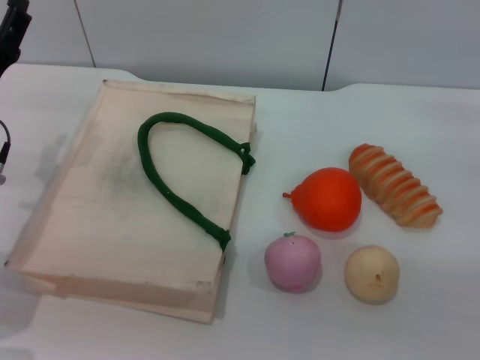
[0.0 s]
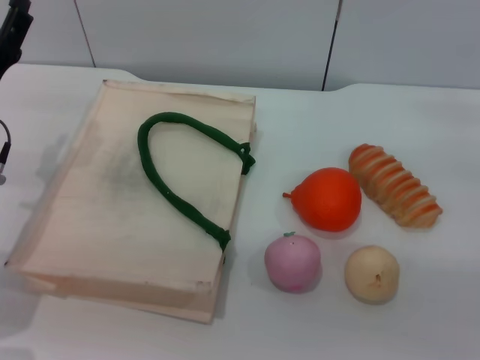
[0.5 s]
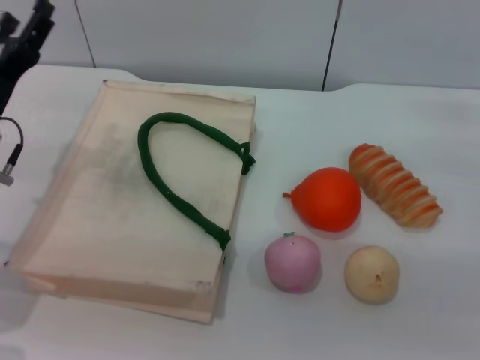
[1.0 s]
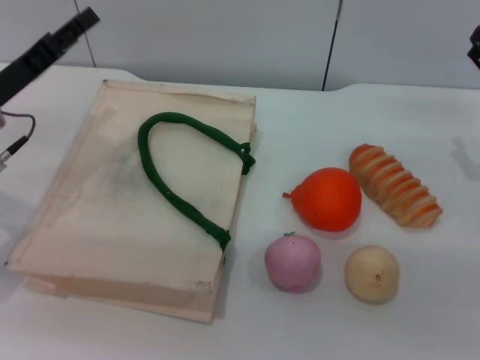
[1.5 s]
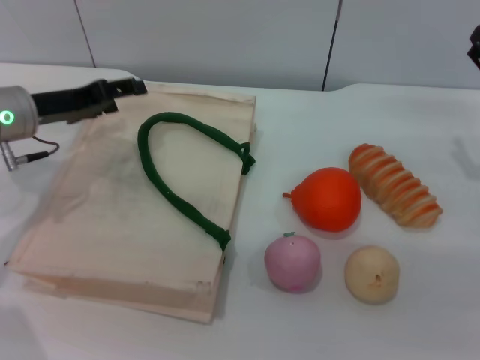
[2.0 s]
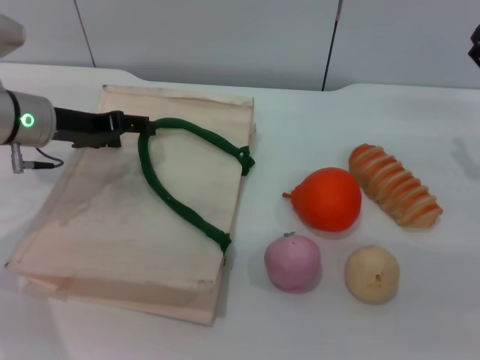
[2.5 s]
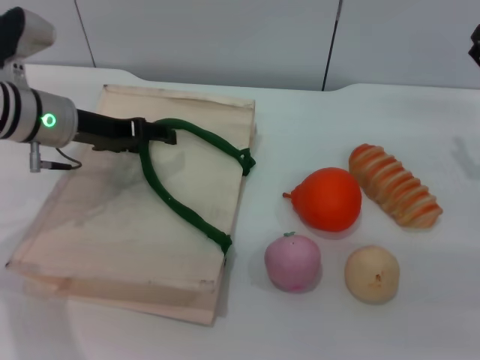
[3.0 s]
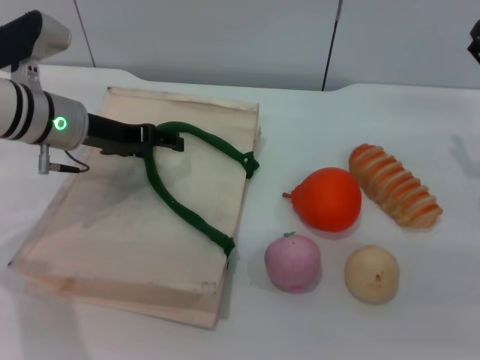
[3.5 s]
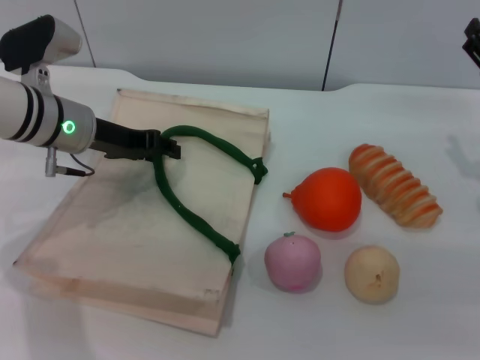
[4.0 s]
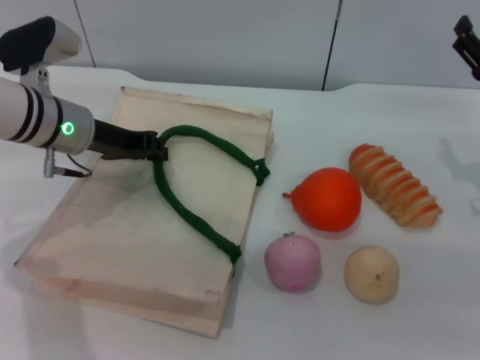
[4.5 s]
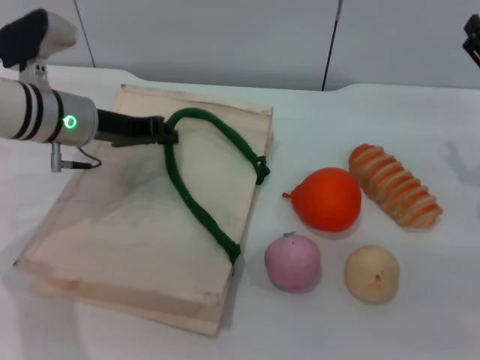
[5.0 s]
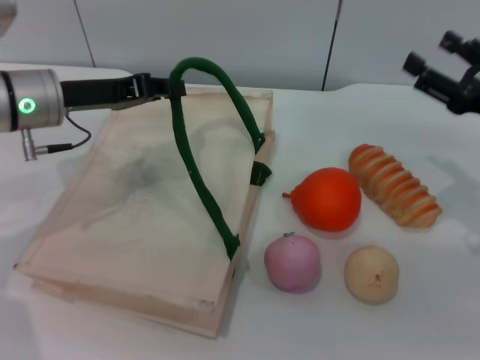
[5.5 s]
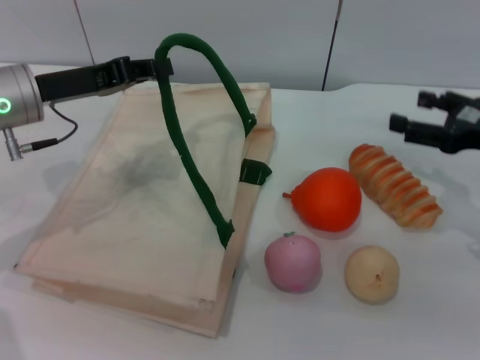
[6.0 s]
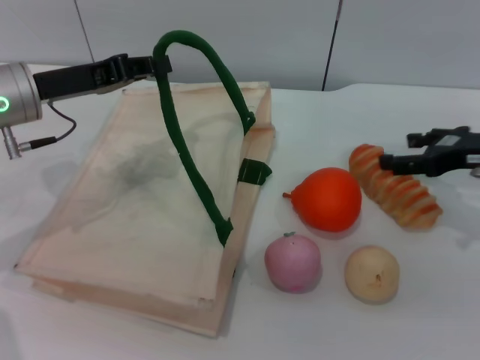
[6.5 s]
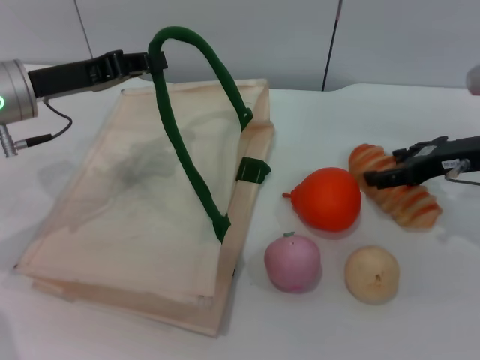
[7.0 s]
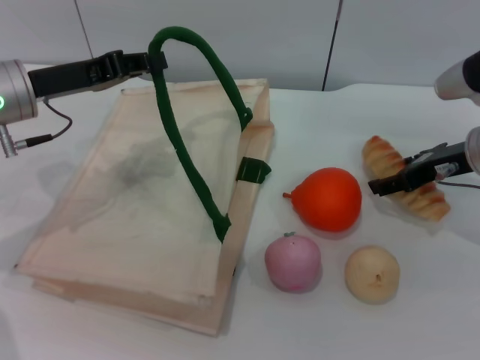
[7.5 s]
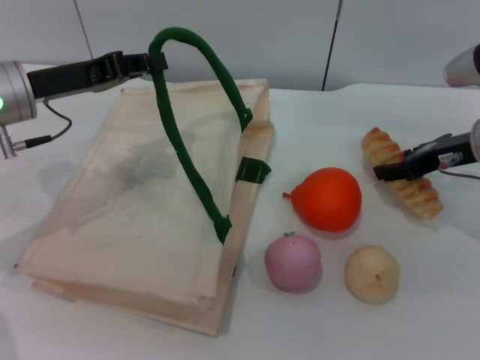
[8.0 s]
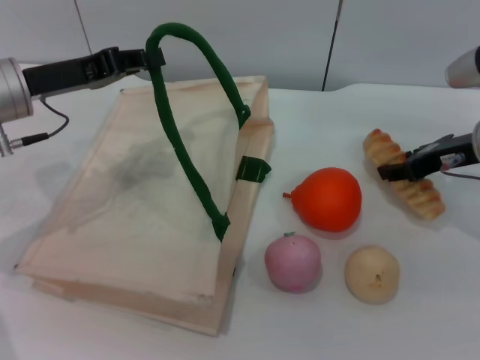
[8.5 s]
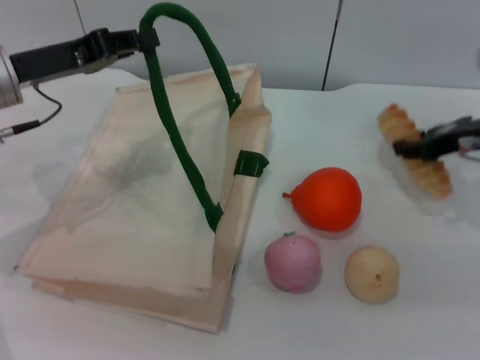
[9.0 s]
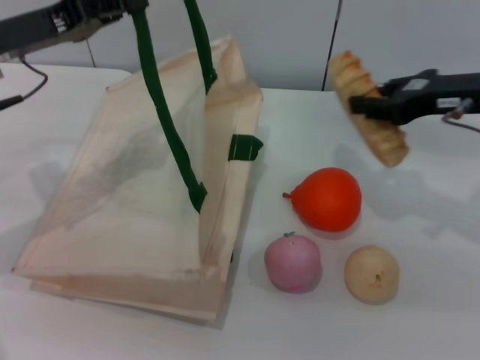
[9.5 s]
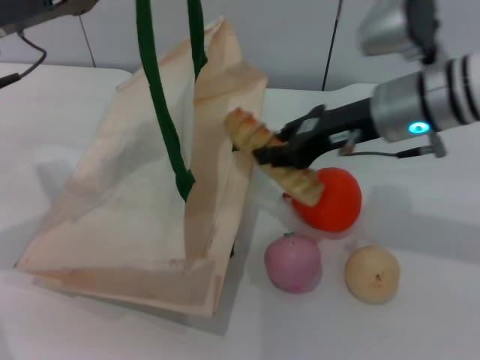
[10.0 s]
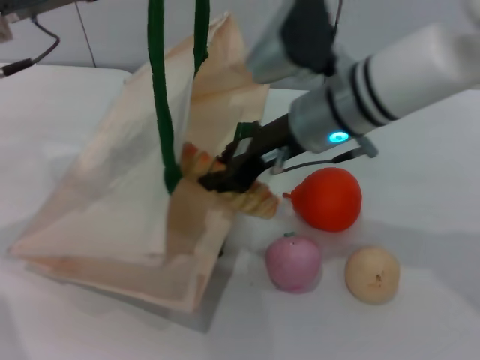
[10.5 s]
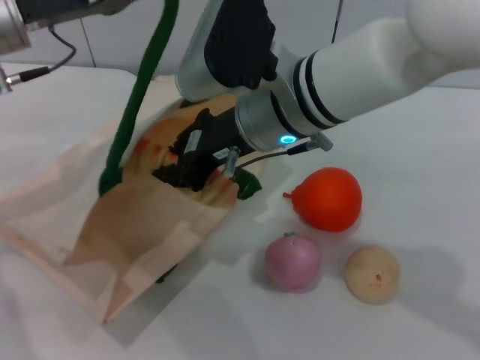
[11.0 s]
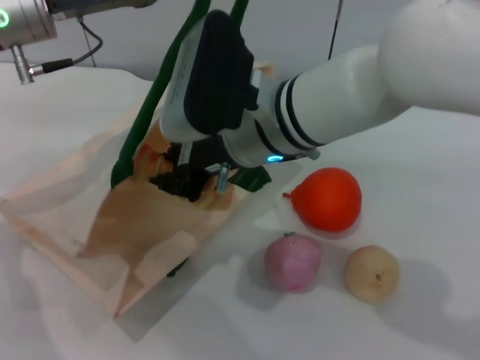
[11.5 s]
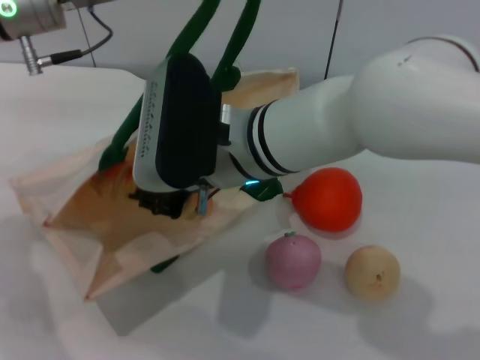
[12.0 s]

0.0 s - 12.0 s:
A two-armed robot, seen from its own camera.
Task of the whole recording: pick up the bread and egg yolk pastry from the table and place it in the white handbag.
Step, 0.0 s - 4.5 s: Lift the woven bag with the left gripper to open it.
Step, 5.0 s - 9.5 s: Pick up the bread with the right gripper.
0.0 s - 2.0 s: The left gripper is displaced forward by about 5 cm.
2.0 s - 4.0 s: The left gripper goes approximately 5 cm to the right.
4.0 s - 6.0 s: The left gripper moves roughly 5 cm, and closes up.
6.0 s - 8.0 s: The right gripper shifts approximately 5 cm to the left.
8.0 s - 10.0 s: The right gripper goes some 10 cm to the left, and closes, while the left gripper heads upward, covering some 5 cm.
10.0 s - 12.0 s: The right gripper heads to the left, covering some 15 cm. Meanwhile the left gripper travels to the right by some 5 cm.

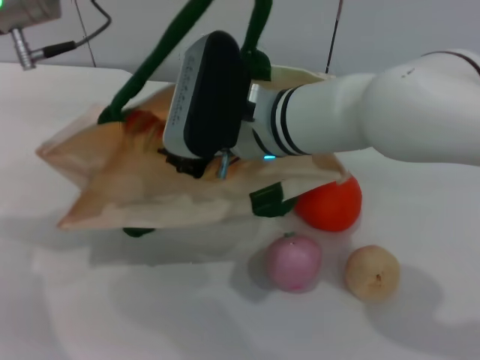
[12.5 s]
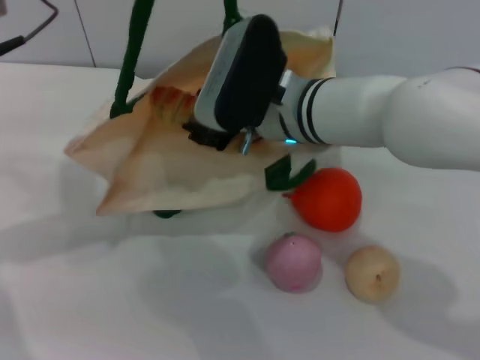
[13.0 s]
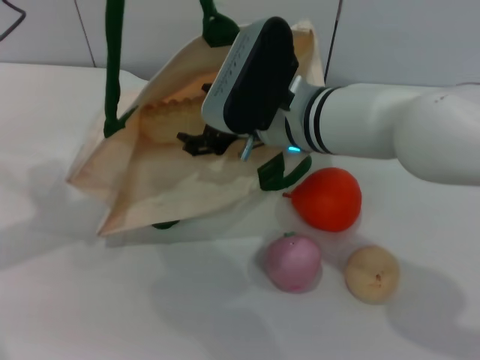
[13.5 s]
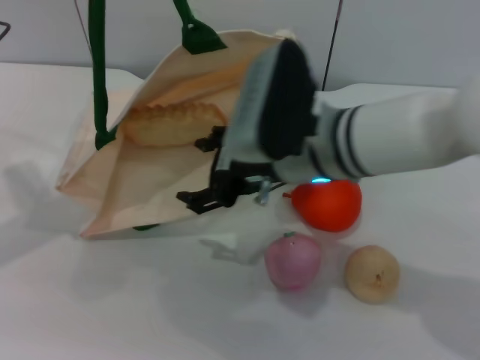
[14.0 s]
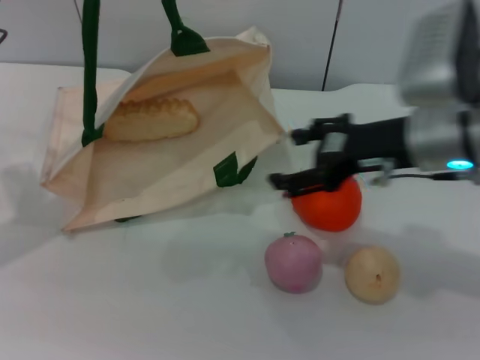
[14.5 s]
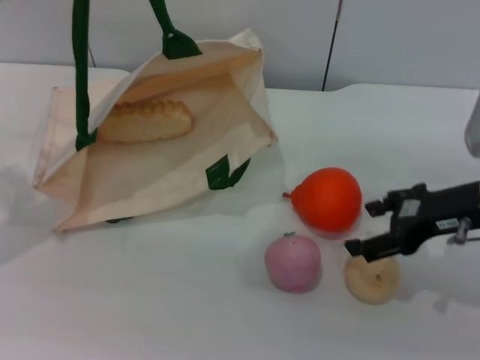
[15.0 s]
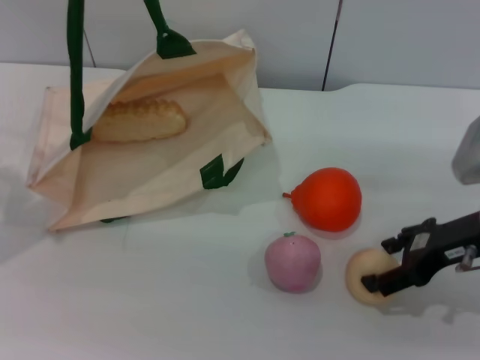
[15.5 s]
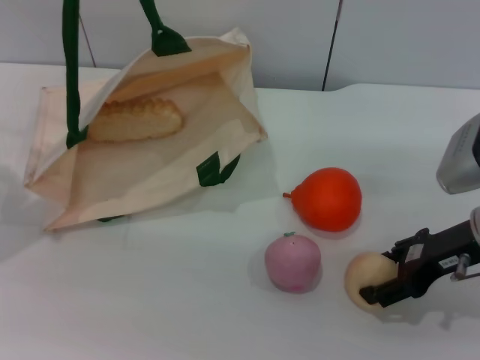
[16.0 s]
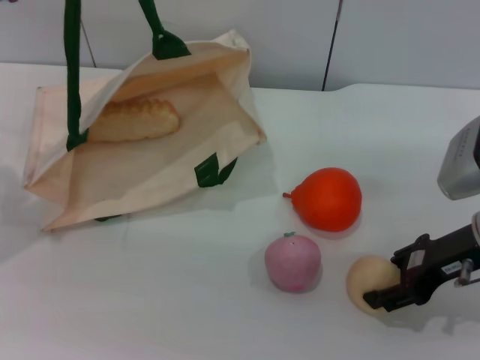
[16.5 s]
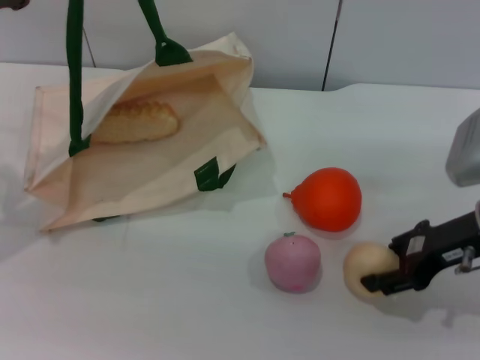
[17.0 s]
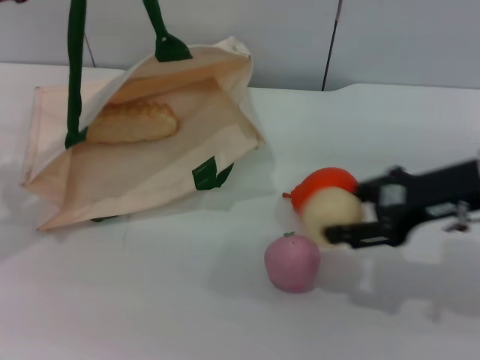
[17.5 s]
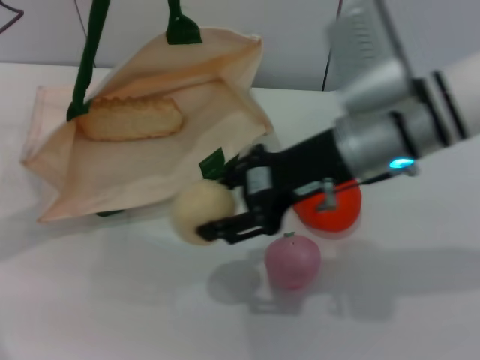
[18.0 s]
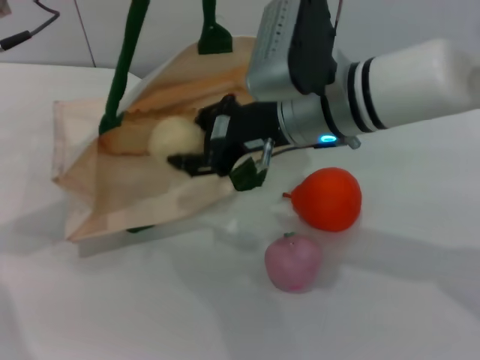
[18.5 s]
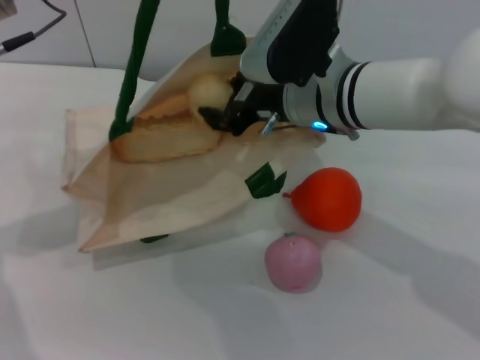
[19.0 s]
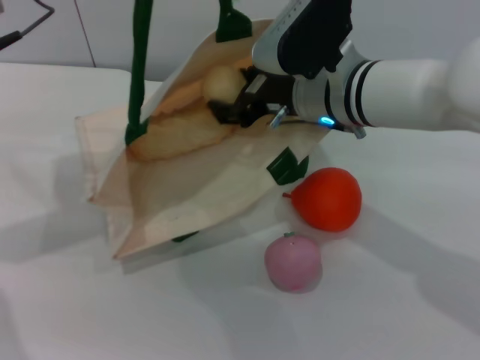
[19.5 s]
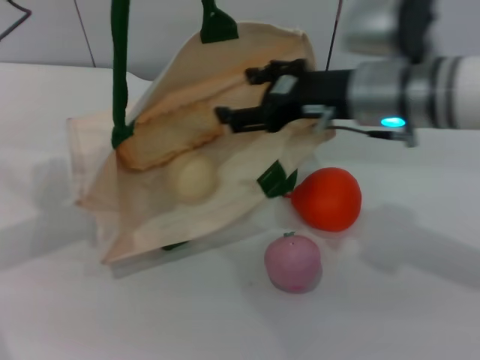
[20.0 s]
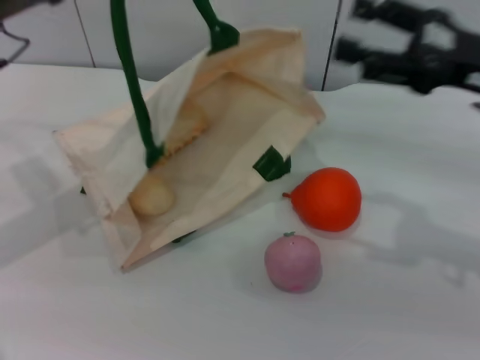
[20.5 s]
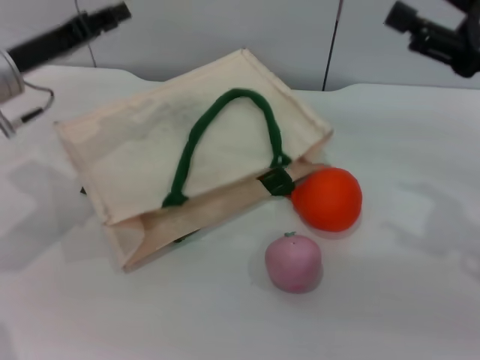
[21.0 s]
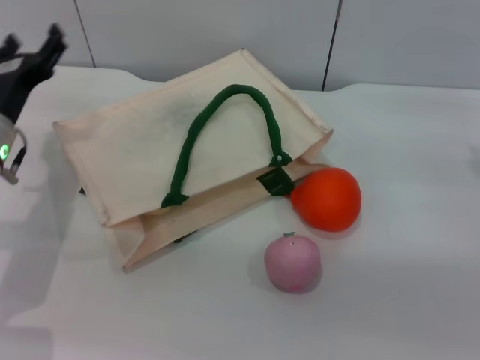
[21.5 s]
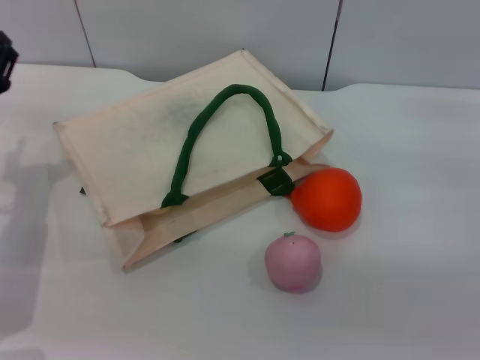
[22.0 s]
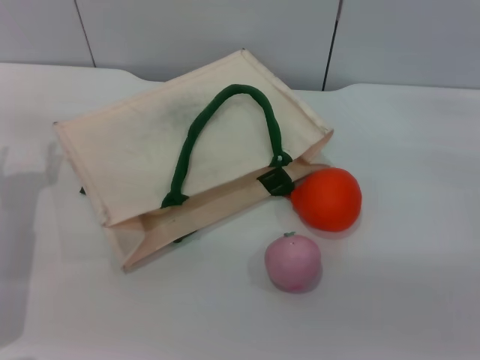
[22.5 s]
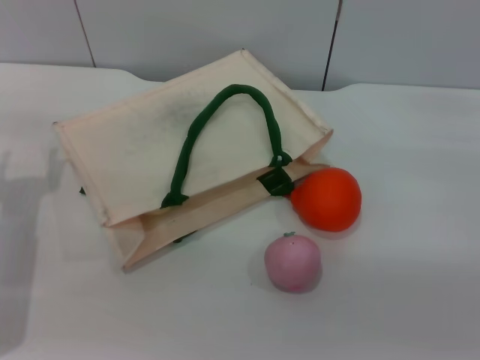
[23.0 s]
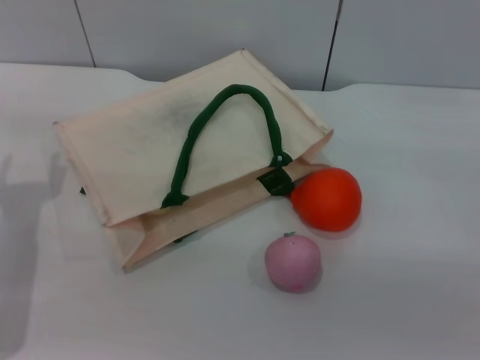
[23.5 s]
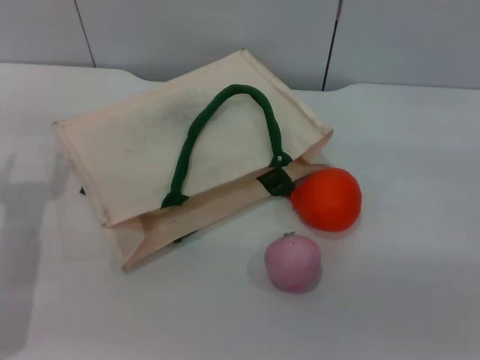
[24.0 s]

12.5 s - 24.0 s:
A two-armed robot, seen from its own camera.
Task of the whole recording: pick up the bread and egg yolk pastry from the table and place it in the white handbag.
Step, 14.0 s - 17.0 s: Pick up the egg yolk pastry with the right gripper.
Step, 17.5 s - 20.0 s: Place the egg yolk pastry into the woven bag with the right gripper.
Step, 20.5 s - 22.5 s: Lower the woven bag with the left gripper to close it.
12.5 s - 14.5 s: The right gripper shifts some 15 cm to the right, and opens. Meanwhile the left gripper is displaced to the left by some 10 cm.
14.5 s - 16.5 s: The right gripper is displaced to the right and downward by about 10 cm, and closes up.
16.5 s - 18.5 s: The right gripper moves to the left, roughly 20 cm, while the left gripper is displaced to the right by about 5 cm.
18.5 s - 20.0 s: The right gripper is displaced to the right by roughly 5 cm, and opens up.
20.0 s - 22.0 s: The left gripper is displaced downward by approximately 15 cm, and opens its fingers. Meanwhile the right gripper moves to the right and downward, approximately 20 cm.
22.0 s - 24.0 s: The grippers stay close to where they were, moving slightly.

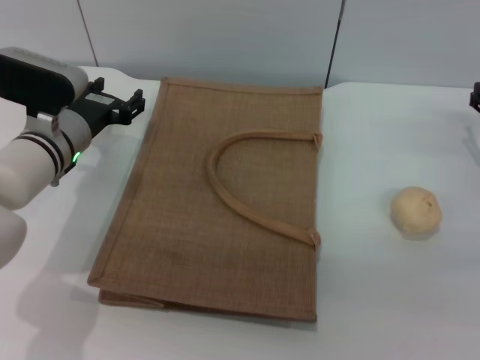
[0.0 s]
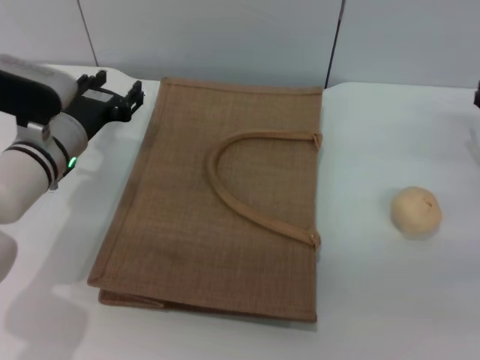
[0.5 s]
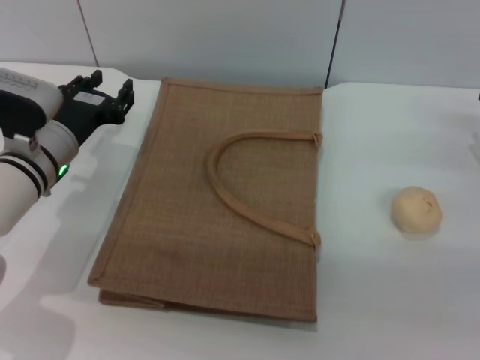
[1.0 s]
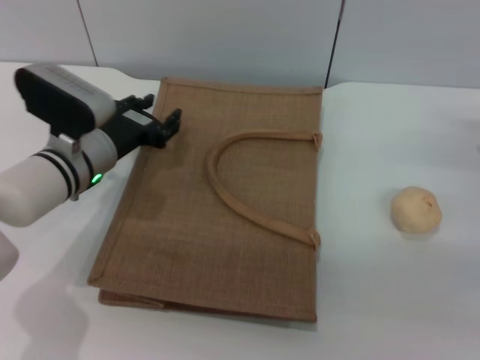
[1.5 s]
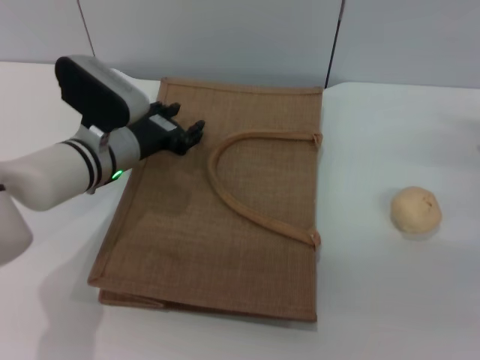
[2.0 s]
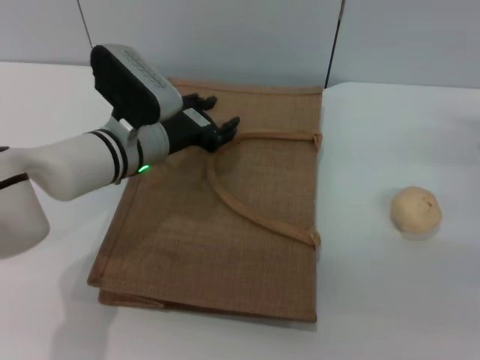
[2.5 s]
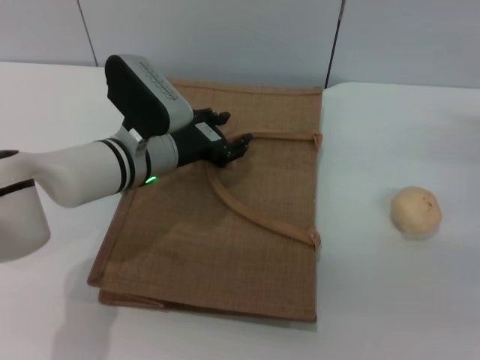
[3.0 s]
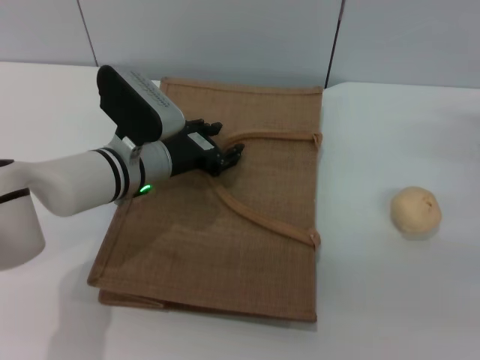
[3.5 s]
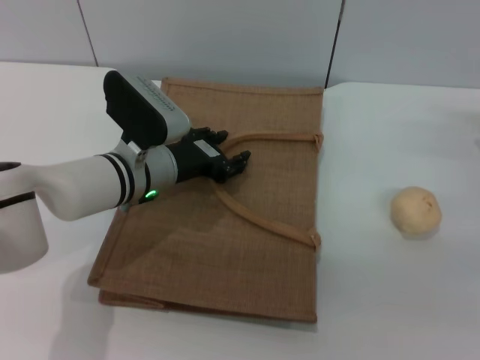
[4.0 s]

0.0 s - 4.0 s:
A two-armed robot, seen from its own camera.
Task of the whole recording: pick up the egg yolk pastry from the table and place it in the brown handbag.
2.0 s - 4.0 s: The grippers move only a little.
